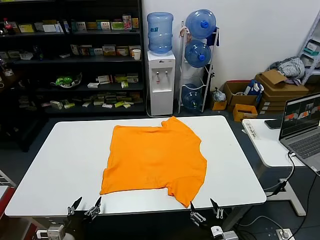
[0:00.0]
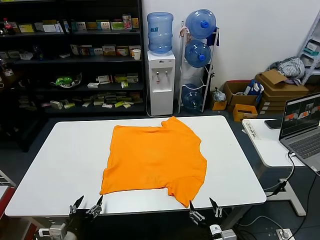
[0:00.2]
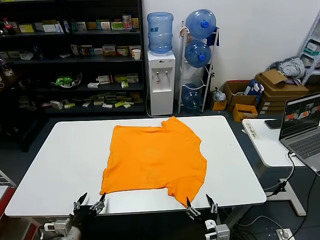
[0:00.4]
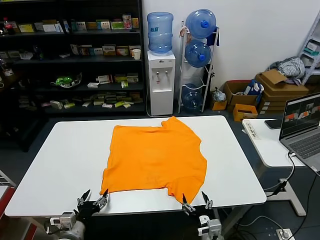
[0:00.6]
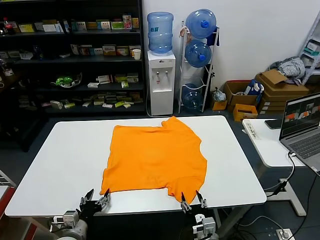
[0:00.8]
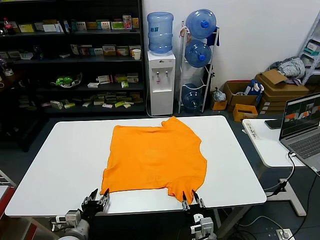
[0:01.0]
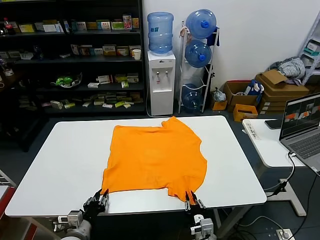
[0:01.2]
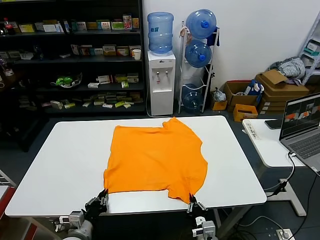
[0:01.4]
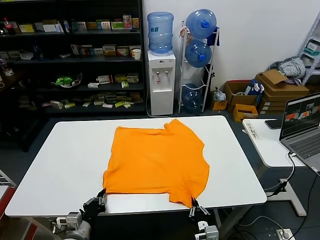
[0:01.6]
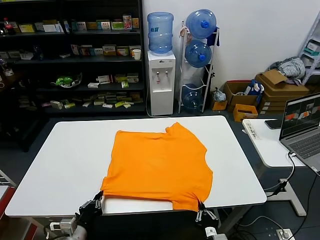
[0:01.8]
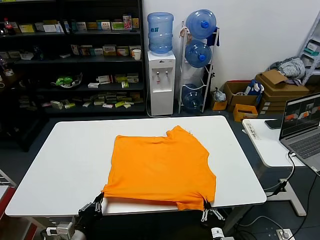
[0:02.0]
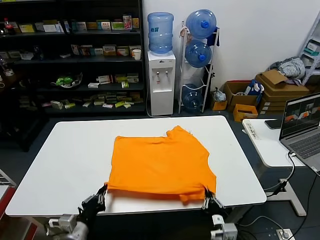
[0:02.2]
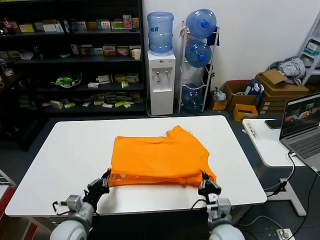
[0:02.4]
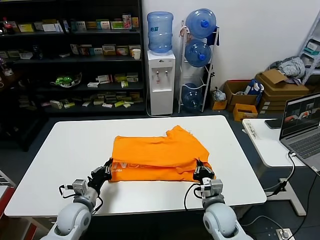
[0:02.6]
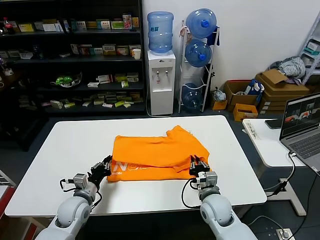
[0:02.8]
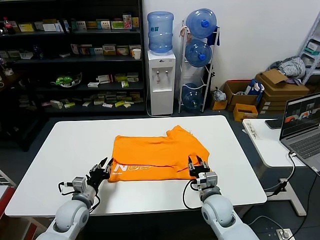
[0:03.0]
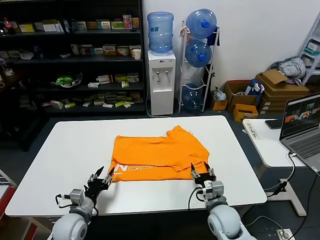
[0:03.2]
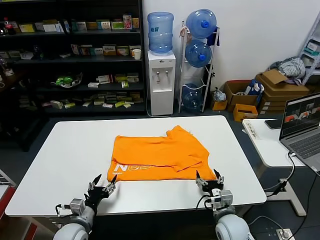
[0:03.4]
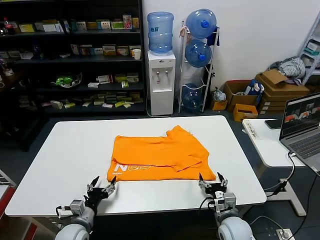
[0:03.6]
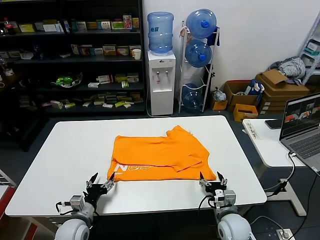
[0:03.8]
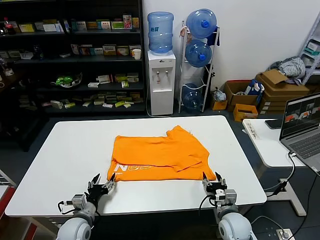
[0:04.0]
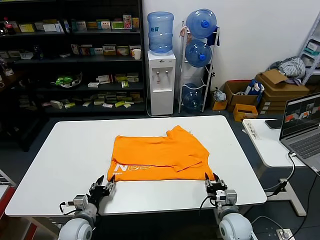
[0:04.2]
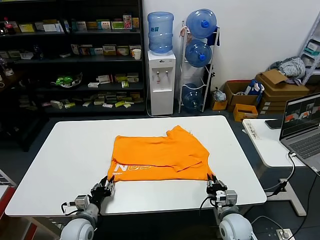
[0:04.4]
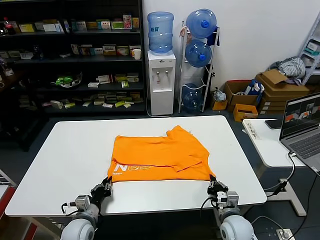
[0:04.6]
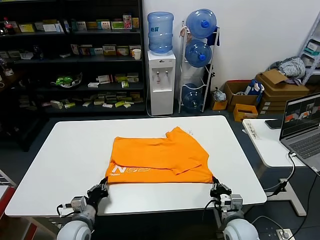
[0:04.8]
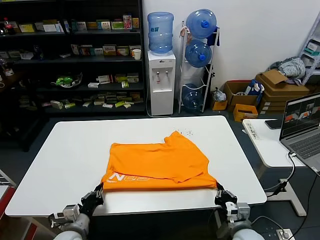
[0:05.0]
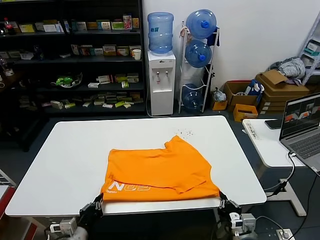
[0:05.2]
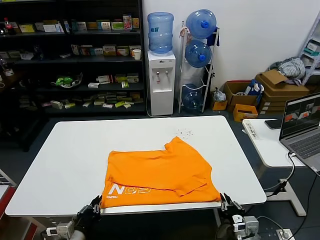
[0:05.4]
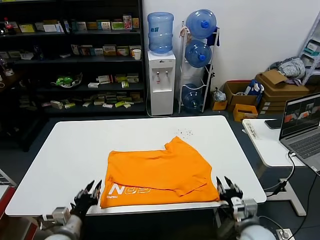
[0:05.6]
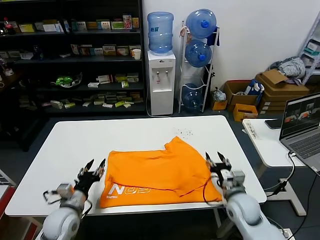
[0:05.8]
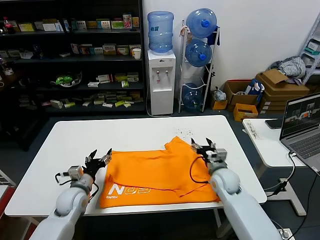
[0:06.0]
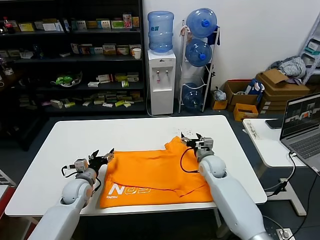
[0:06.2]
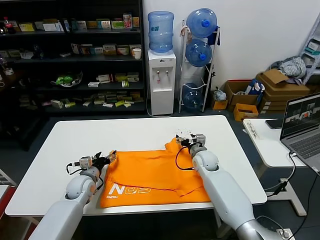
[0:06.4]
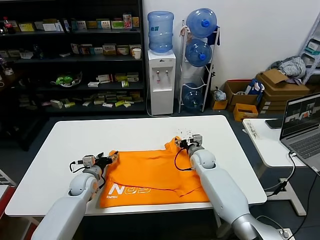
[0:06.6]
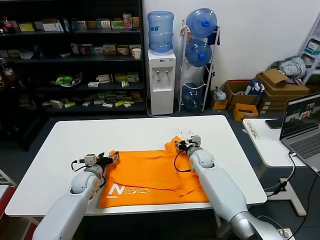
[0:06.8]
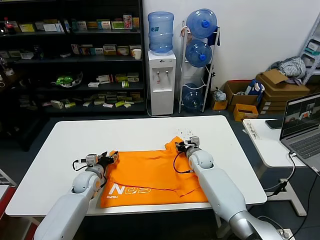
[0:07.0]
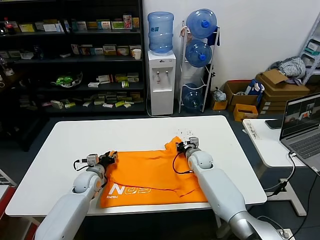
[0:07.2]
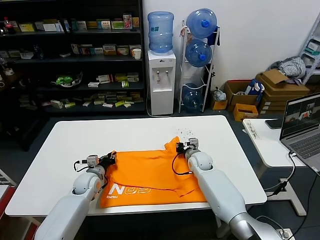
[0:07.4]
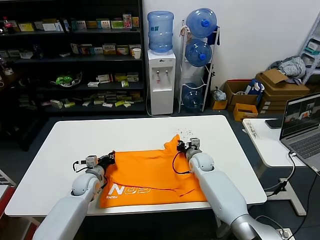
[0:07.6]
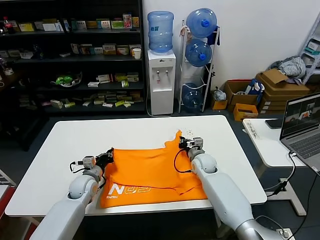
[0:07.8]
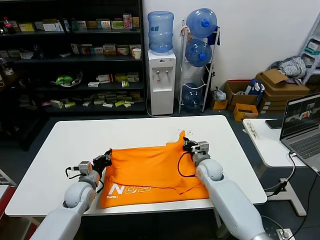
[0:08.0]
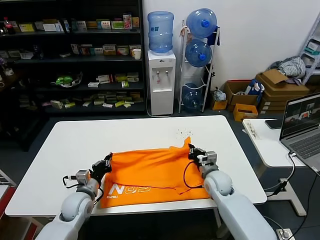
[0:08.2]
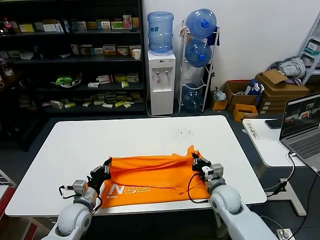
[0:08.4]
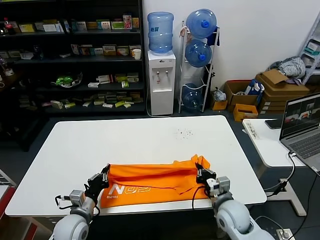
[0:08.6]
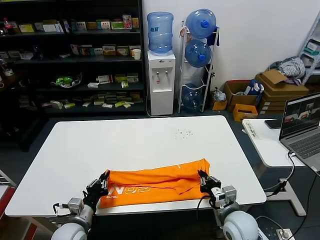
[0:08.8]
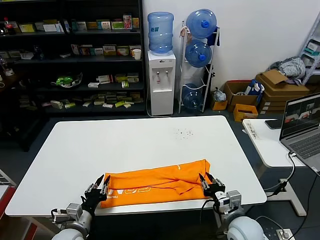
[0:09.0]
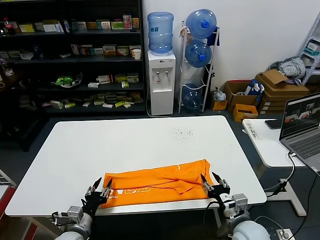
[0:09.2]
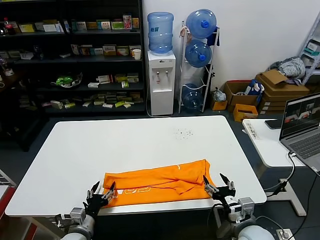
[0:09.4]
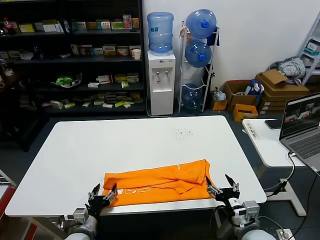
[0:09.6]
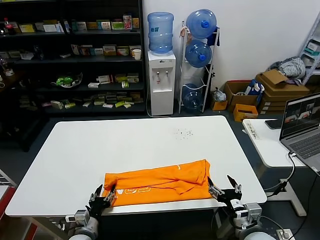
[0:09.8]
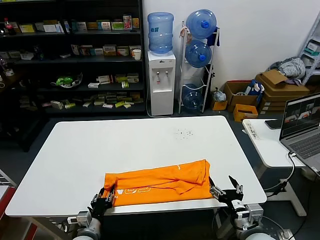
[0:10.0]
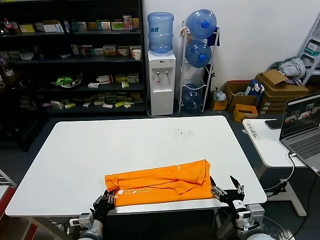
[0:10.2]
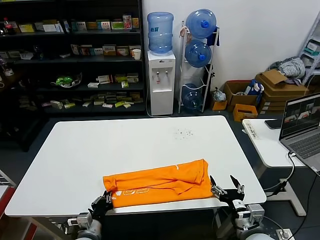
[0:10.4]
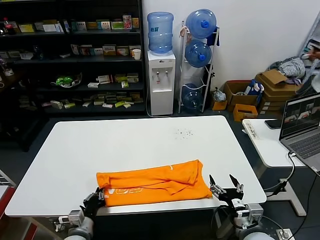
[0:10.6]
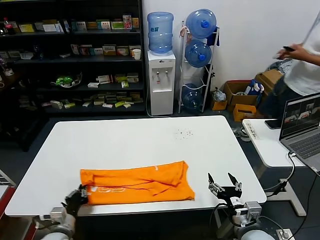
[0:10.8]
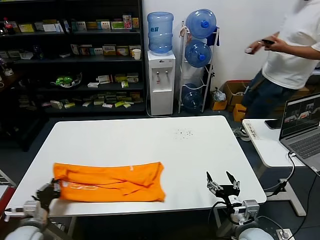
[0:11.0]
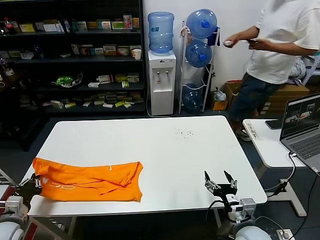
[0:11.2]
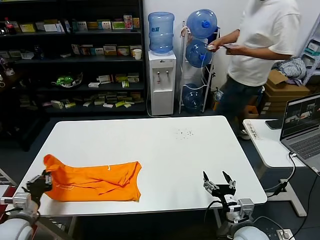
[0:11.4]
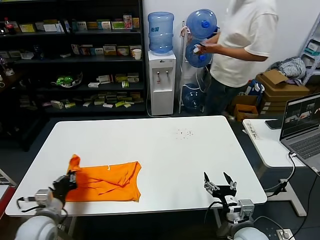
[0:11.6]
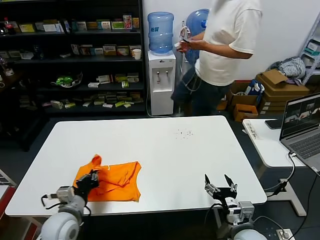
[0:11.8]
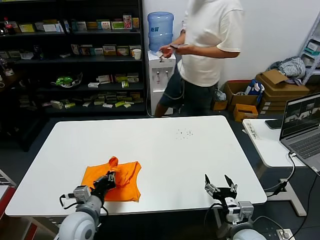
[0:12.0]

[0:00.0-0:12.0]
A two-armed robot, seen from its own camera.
Task of the whole recording: fold and organize the clothes.
Step, 0:00.0 to 0:01.4: use both grippers simultaneously to clamp the lower edge of the clothing fabric.
Step, 0:01.6 to 0:02.8: use both grippers to drag the lower edge of the fabric forward and fold it over the upper edge.
Step, 0:03.0 to 0:05.4: Drag the clothes downward with both gripper.
Step, 0:05.6 to 0:07.4: use both grippers simultaneously to clamp the upper edge of the clothing fabric.
Step, 0:07.6 to 0:08.8: use both grippers to drag the upper edge of the fabric backward and fold it over the lower edge.
Step, 0:09.2 to 0:10.2: use the left gripper to clamp the left edge of the fabric.
0:01.6 to 0:03.0: Both grippers travel together forward, some 15 cm. The right gripper opens up. The left gripper opens.
0:03.0 to 0:04.4: The left gripper is displaced downward by about 5 cm, and opens, then closes again, while the right gripper shifts approximately 5 cm to the right, and closes.
0:04.4 to 0:06.0: The left gripper heads upward and forward, covering about 10 cm, and opens up; the right gripper heads forward and upward, covering about 15 cm, and opens.
0:06.0 to 0:07.6: The right gripper travels forward and to the left by some 10 cm, and closes up. Meanwhile the left gripper goes approximately 10 cm forward, and closes its fingers.
0:07.6 to 0:09.0: Both grippers move backward, some 25 cm. The right gripper opens up.
0:09.0 to 0:10.4: The left gripper shifts by approximately 5 cm, and opens and closes again, while the right gripper goes about 5 cm backward, and opens up.
0:10.4 to 0:12.0: The left gripper heads upward, covering approximately 10 cm, and travels to the left and back again, approximately 20 cm each way.

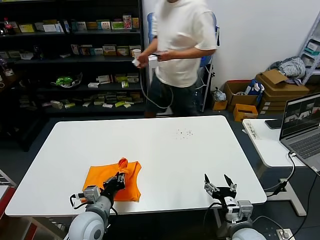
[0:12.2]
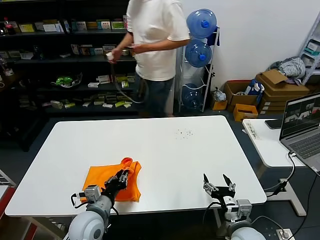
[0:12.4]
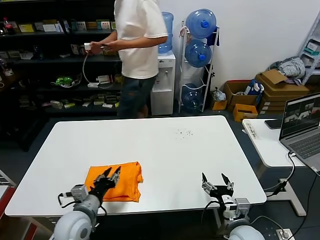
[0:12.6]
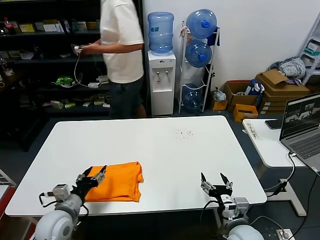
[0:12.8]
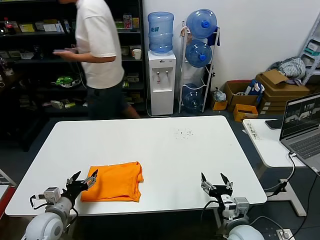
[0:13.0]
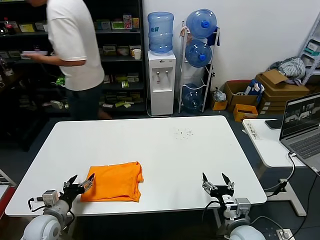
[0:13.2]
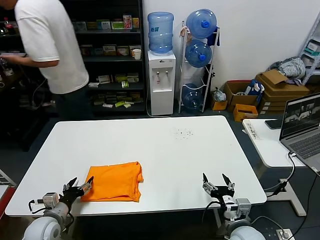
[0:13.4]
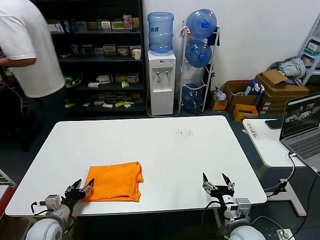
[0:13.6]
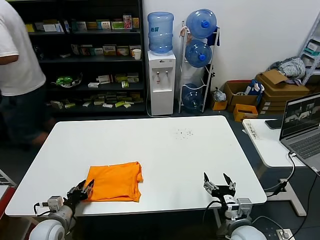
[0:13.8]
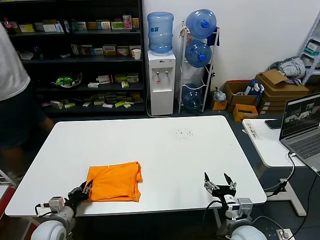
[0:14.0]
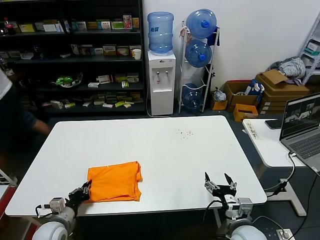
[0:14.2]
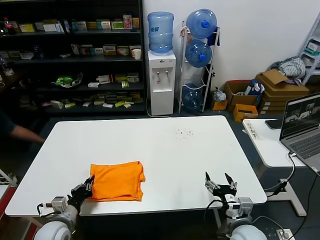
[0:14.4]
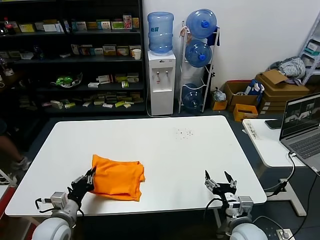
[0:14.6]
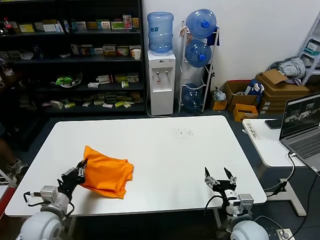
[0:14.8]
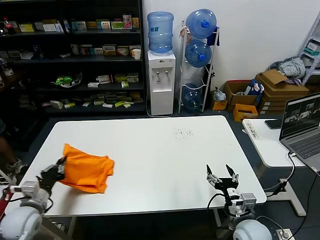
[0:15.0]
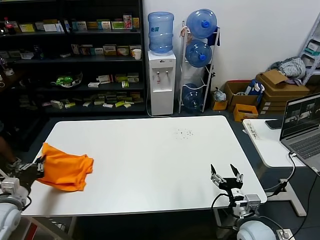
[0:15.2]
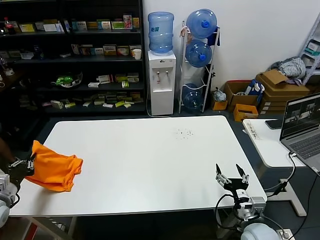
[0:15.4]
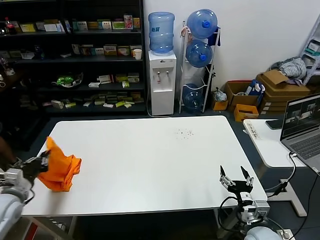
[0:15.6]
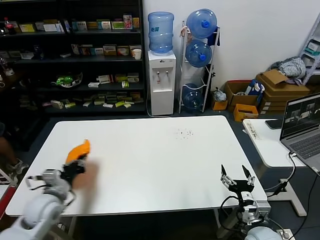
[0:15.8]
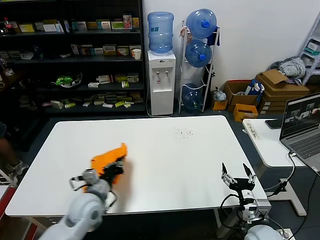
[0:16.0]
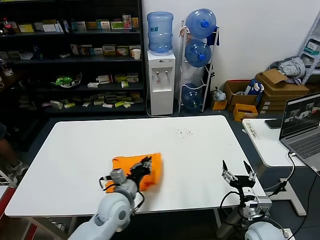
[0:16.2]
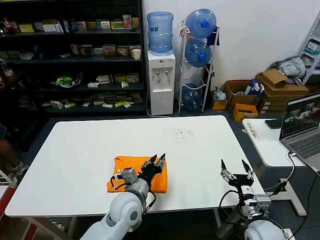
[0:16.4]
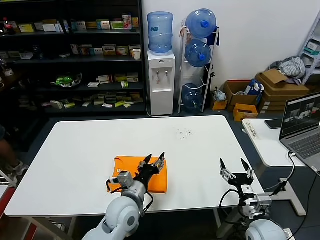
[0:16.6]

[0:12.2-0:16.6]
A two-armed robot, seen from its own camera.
Task of the whole recording: fold and organize the clothes.
Step, 0:12.8 to 0:16.2: Flip the folded clothes over with left gripper.
0:12.2 to 0:13.6: The left gripper is displaced to the left and downward by approximately 15 cm, and opens.
0:13.6 to 0:15.2: The left gripper shifts roughly 10 cm upward and to the left, and closes its fingers.
0:15.2 to 0:16.6: The left gripper goes some 35 cm to the right, and opens.
